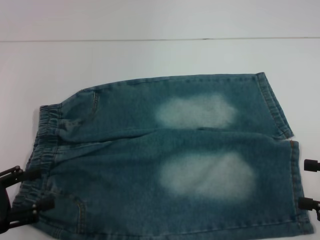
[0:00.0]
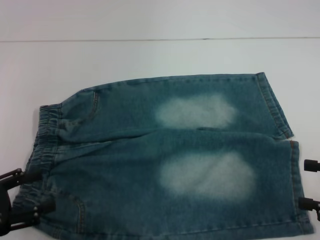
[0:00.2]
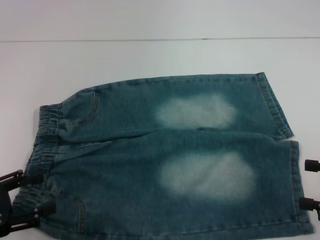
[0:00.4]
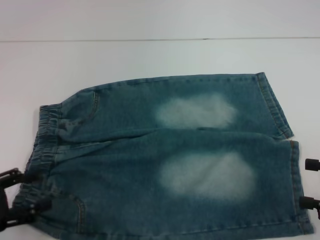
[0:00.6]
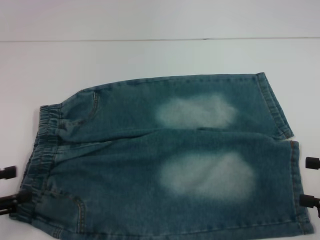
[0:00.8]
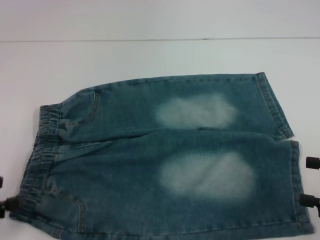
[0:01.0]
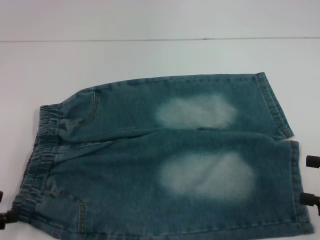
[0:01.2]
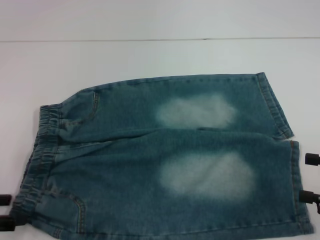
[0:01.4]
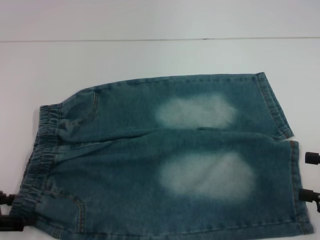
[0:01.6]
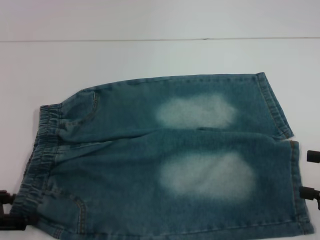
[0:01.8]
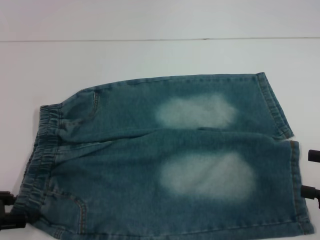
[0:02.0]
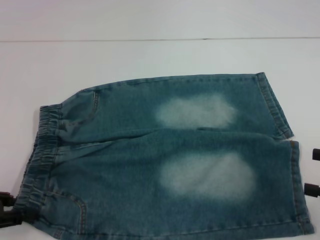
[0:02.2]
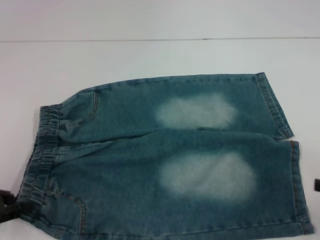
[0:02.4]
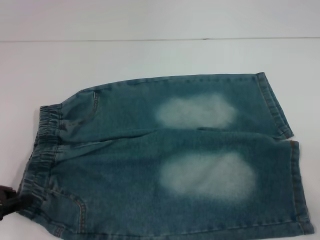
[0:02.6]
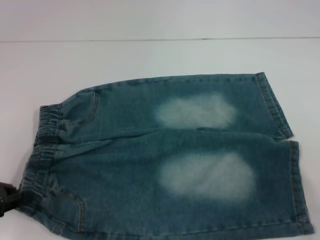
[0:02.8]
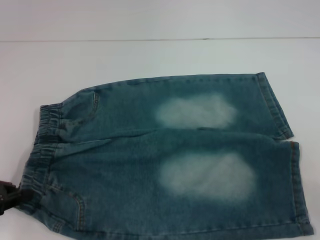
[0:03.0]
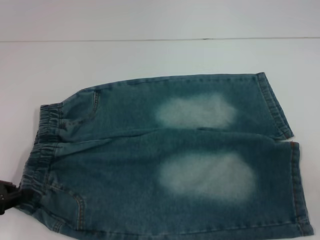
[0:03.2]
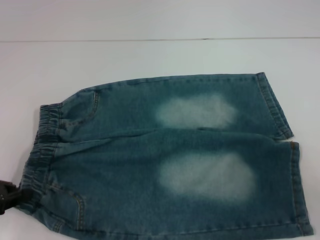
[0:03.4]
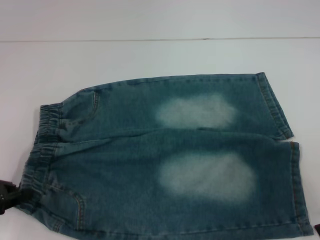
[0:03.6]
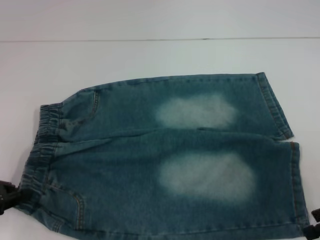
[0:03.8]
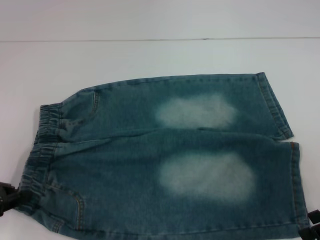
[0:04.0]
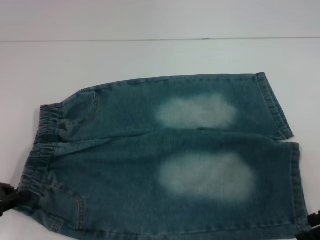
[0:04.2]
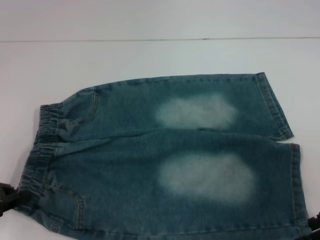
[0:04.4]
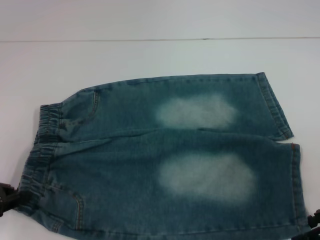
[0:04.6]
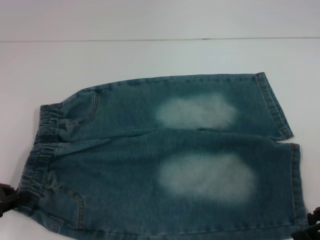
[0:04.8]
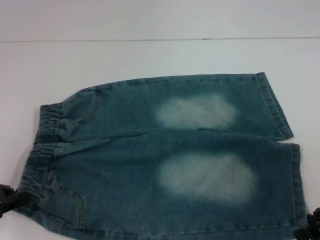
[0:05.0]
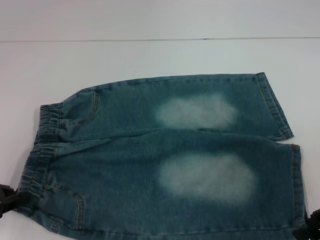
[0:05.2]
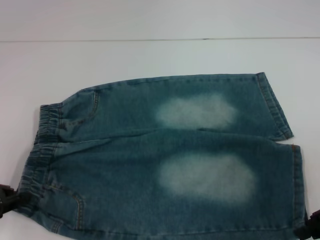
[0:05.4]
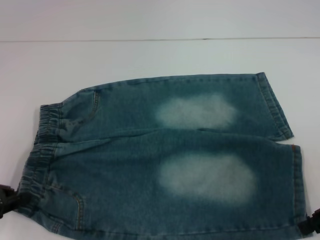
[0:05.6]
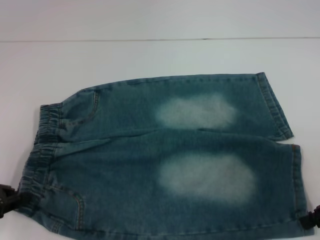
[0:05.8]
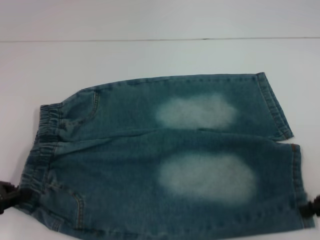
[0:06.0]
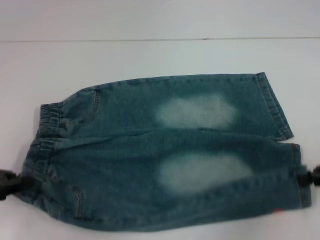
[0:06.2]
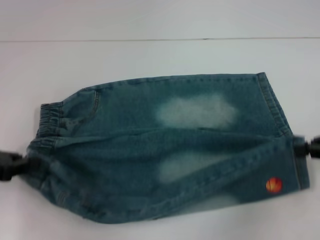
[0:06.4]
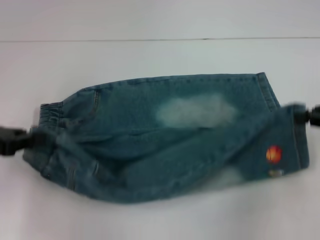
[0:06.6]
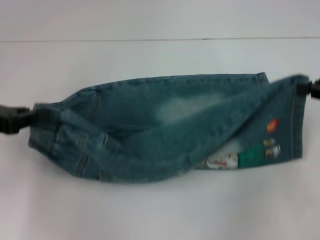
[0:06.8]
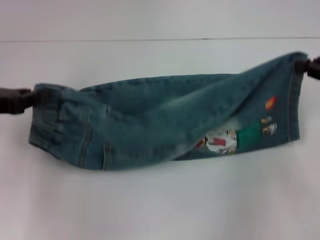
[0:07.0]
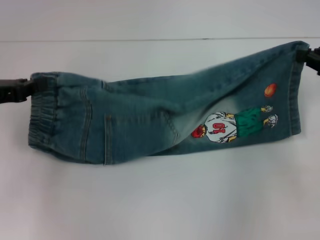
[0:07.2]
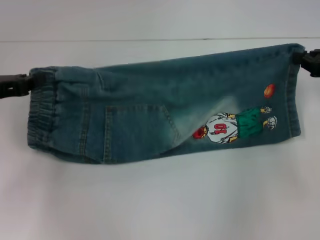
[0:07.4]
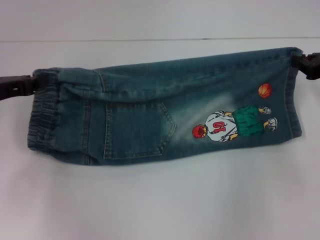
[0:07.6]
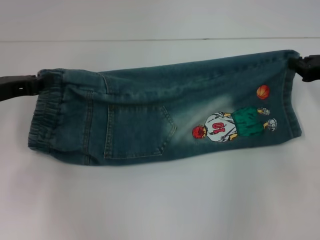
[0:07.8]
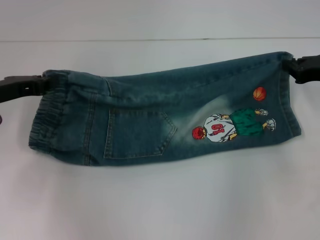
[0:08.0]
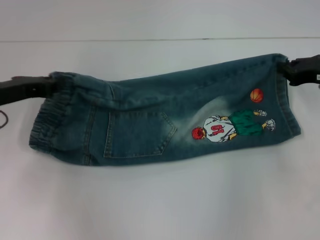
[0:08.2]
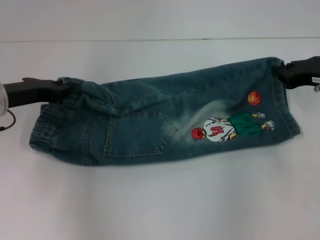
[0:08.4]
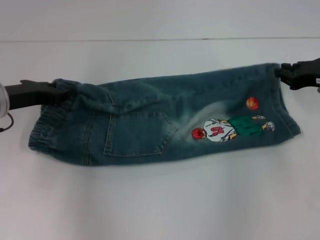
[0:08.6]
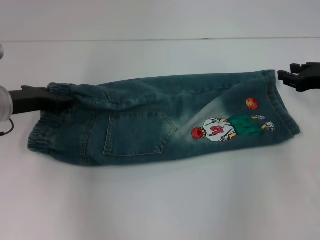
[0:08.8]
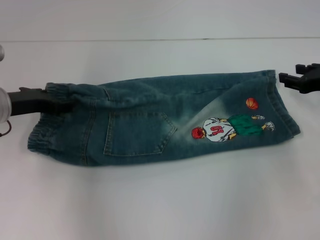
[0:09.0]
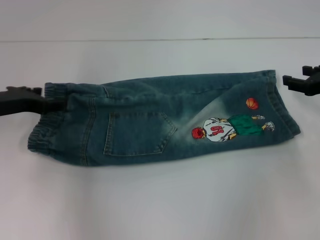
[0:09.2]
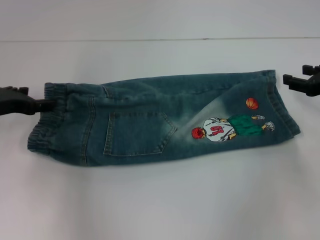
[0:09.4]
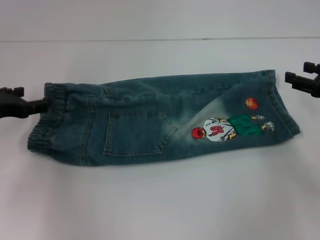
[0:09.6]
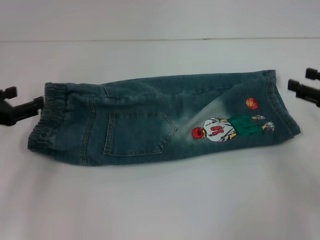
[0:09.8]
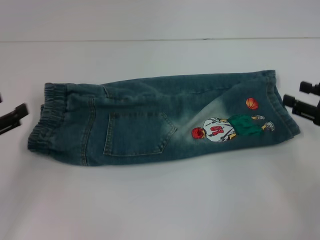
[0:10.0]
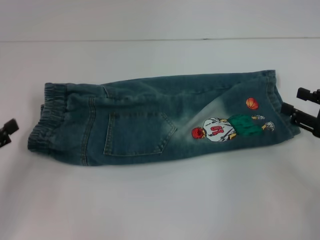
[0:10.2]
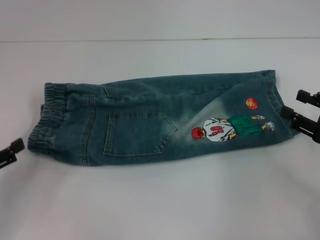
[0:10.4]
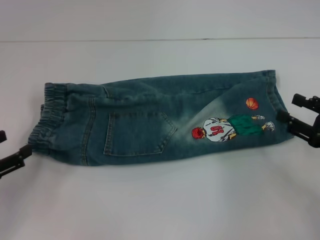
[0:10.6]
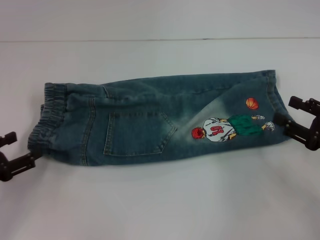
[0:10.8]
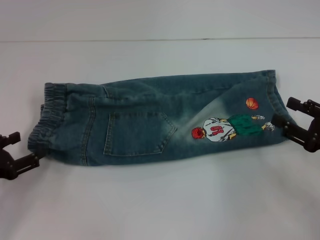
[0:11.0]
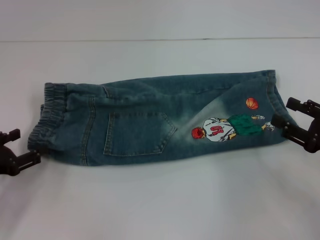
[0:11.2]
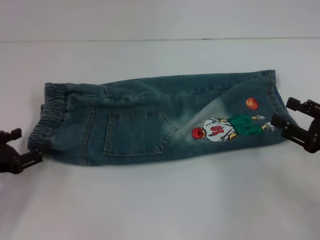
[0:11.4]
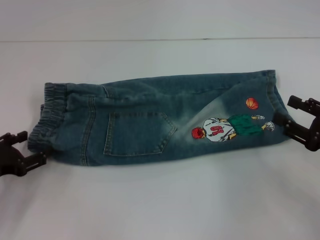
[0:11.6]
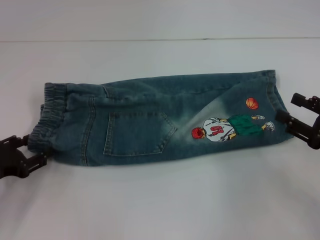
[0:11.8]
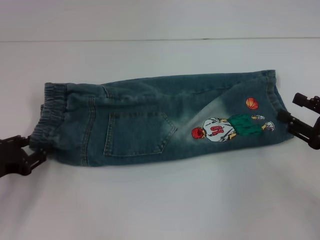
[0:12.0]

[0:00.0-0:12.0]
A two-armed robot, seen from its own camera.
Step, 0:00.0 to 0:02.8: Hold the lower left waistband with your left hand.
Step, 0:03.0 to 0:06.0: Grab the lower right pant leg with your right hand.
Step, 0:06.2 to 0:09.2: Fold upward with your right hand.
0:01.6 to 0:03.0: The right gripper moves some 5 cm, while the left gripper closes its fingers.
0:03.0 to 0:04.4: The right gripper moves to the left, about 5 cm.
0:04.4 to 0:06.0: The right gripper closes.
0:06.0 to 0:07.6: The grippers both shift forward by about 10 cm.
0:07.6 to 0:09.0: The left gripper ends up about 5 cm from where it was, and opens up.
0:09.0 to 0:10.4: The right gripper travels backward by roughly 10 cm, while the left gripper is displaced backward and to the left by approximately 20 cm, and opens.
0:10.4 to 0:12.0: The left gripper changes place by roughly 5 cm, and closes up.

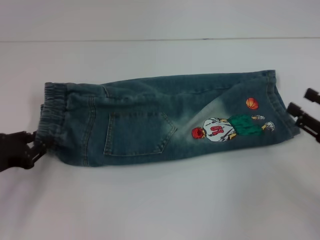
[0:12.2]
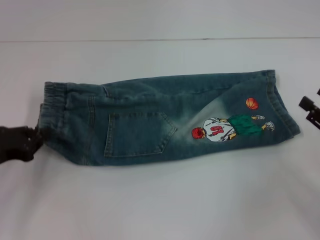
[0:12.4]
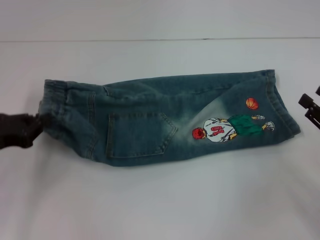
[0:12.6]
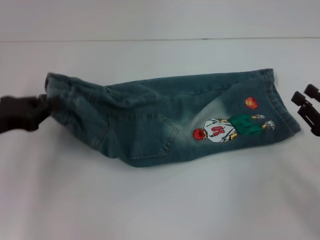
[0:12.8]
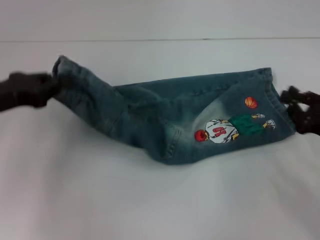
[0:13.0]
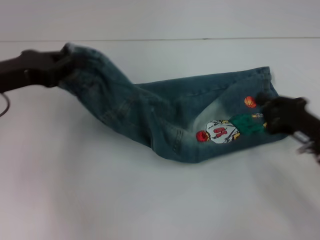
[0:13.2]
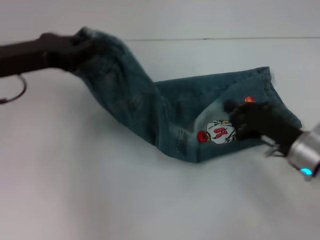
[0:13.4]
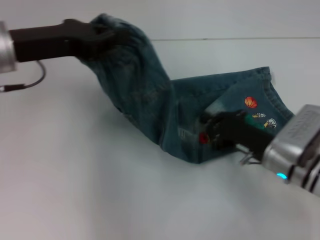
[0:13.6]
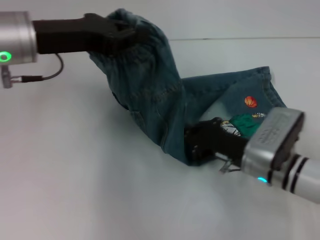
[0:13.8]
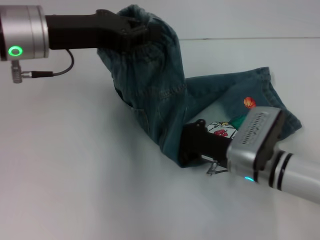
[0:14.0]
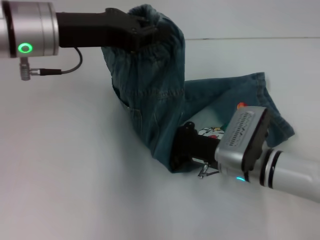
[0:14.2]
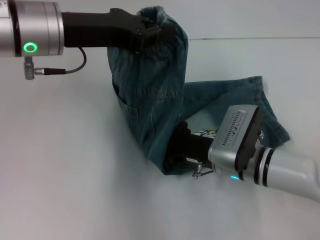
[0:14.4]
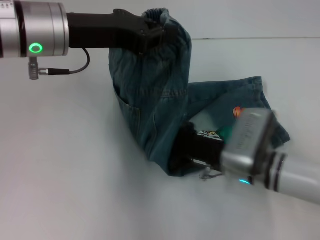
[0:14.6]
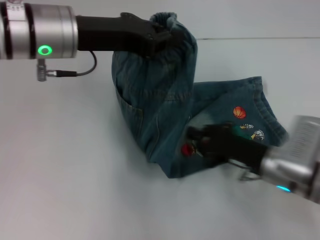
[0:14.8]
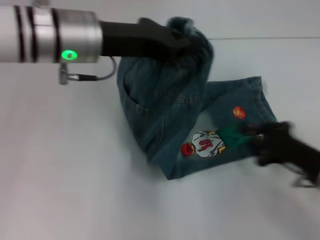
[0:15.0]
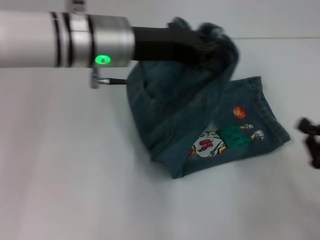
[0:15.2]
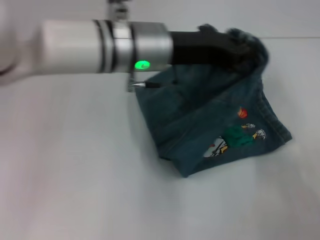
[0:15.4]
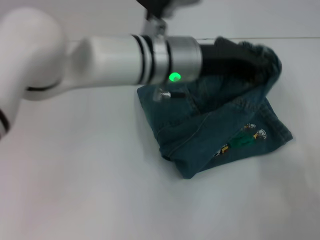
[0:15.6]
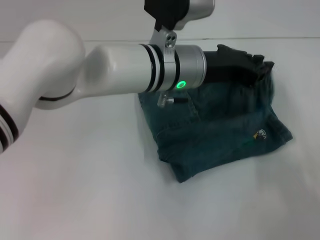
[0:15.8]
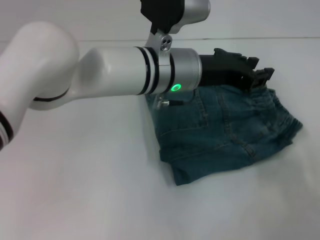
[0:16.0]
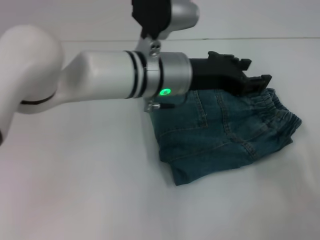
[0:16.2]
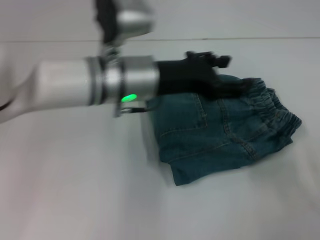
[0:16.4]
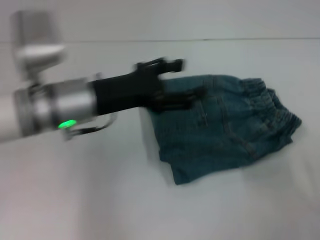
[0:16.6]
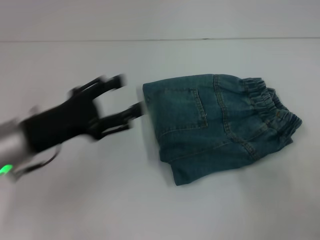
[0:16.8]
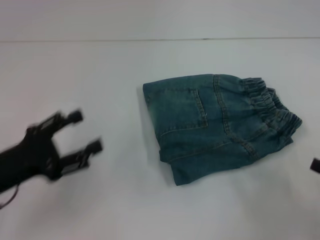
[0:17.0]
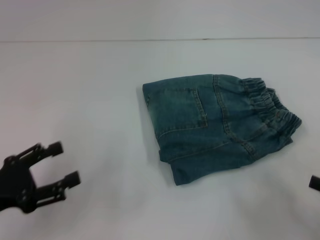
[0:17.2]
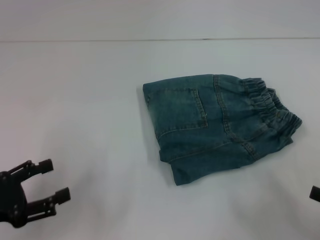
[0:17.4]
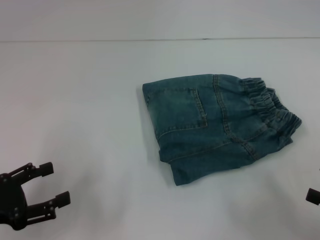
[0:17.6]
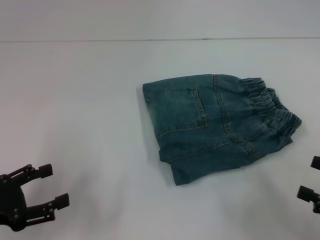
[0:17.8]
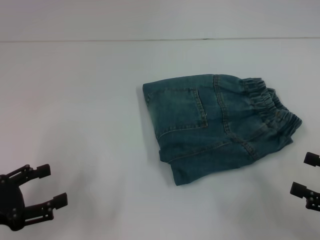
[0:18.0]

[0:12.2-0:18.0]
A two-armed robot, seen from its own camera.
Step, 0:12.8 to 0:14.8: Press the middle of the pants with your right hand.
Step, 0:15.0 to 0:16.2: Fold to the right with your left hand.
0:12.2 to 0:13.6: The left gripper is displaced upward, to the right and forward by approximately 20 cm, and closes up; the right gripper travels to the left by roughly 15 cm, and closes up.
0:13.6 to 0:15.0: The two grippers go approximately 10 cm to the right.
0:15.0 to 0:16.6: The right gripper goes about 10 cm to the right and backward; the left gripper moves downward, approximately 10 cm, moves roughly 10 cm to the right and comes back, and opens.
0:16.6 to 0:18.0: The left gripper is displaced to the left and backward by approximately 20 cm, while the right gripper opens its fingers.
